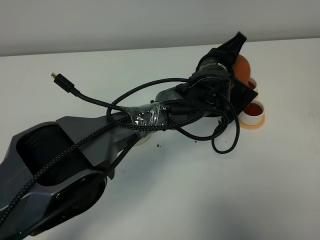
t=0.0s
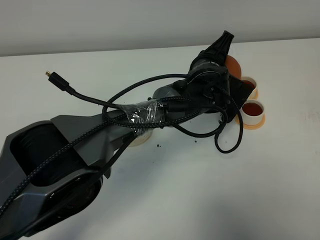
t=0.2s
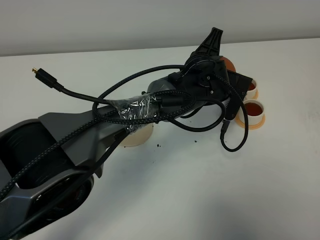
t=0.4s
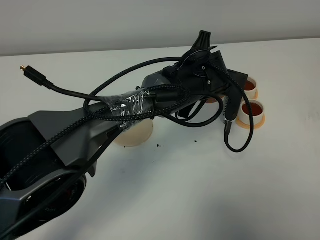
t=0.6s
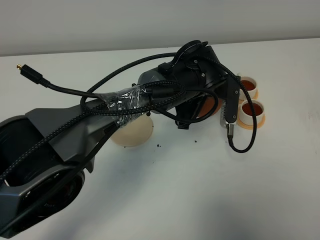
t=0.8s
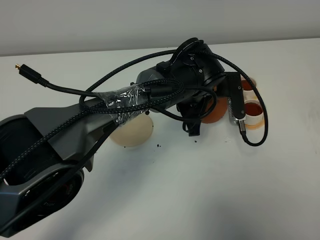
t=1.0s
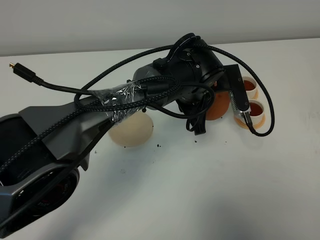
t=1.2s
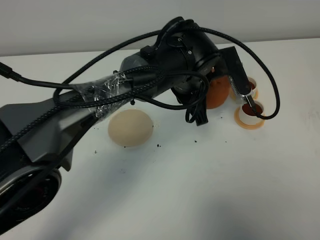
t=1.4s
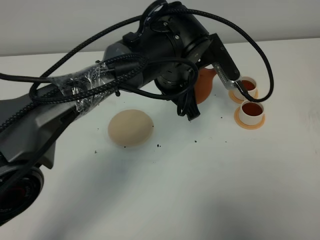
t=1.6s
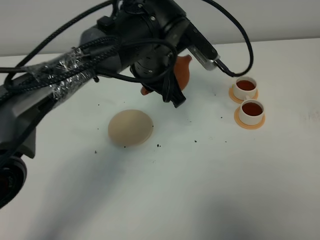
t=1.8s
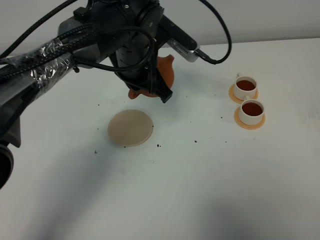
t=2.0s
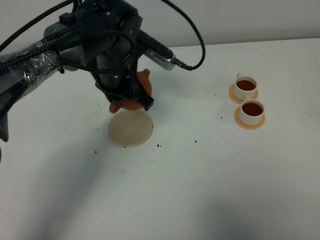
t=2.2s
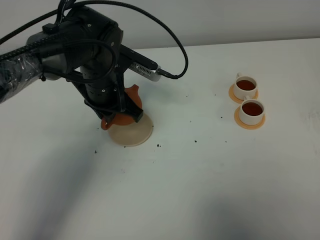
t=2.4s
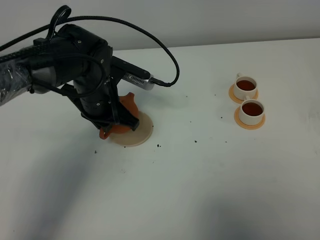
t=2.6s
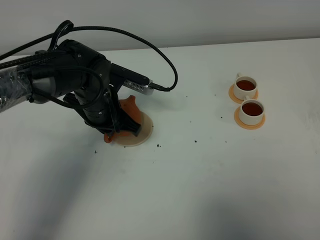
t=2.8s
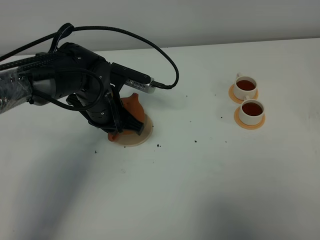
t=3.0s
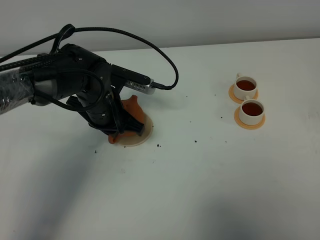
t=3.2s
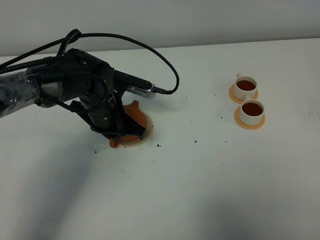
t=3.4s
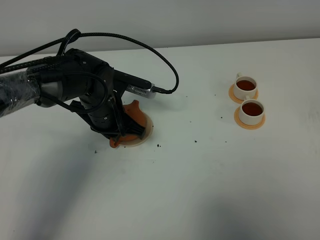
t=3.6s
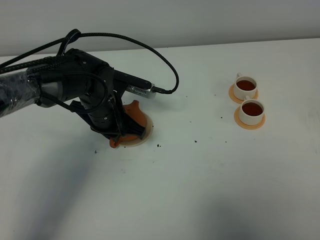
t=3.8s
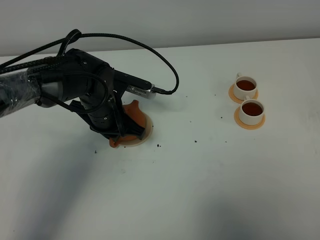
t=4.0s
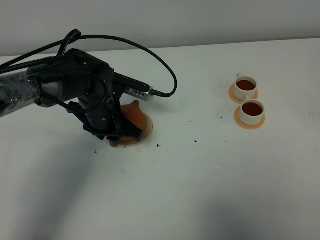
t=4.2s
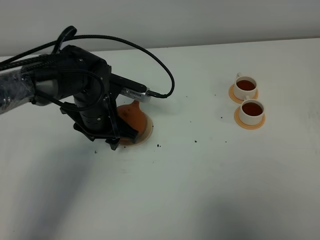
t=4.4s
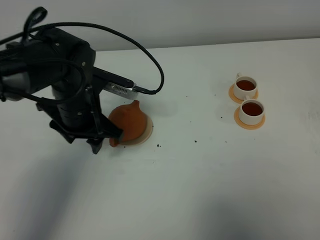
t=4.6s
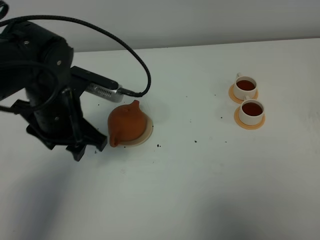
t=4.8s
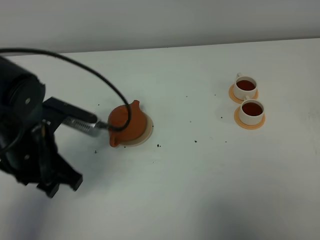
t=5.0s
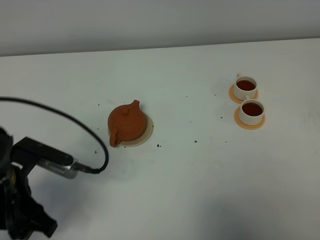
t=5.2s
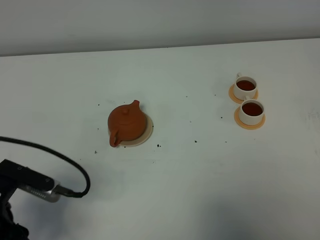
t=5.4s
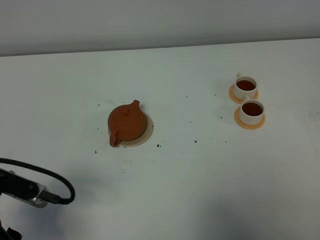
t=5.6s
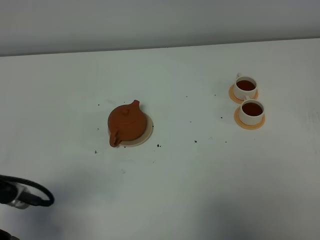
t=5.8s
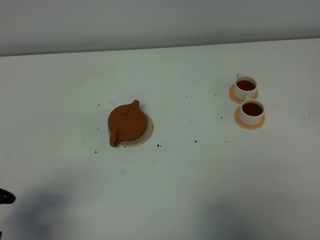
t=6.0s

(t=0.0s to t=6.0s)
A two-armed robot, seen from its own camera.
Task of the whole recording: grasp the brown teapot and pour the tea into the two white teacups one by one, put the brown teapot back in its original place.
t=0.0s - t=1.6s: The left gripper goes some 10 cm upward and to the left.
t=1.6s - t=3.0s: The left gripper moves to the left and downward, some 15 cm.
t=3.0s - t=4.4s: The left gripper opens.
t=4.4s - t=6.0s: The left gripper travels backward and to the left by roughly 30 cm.
